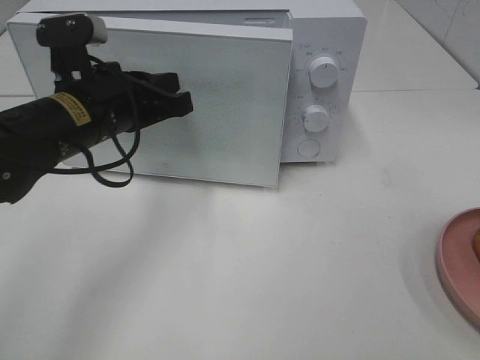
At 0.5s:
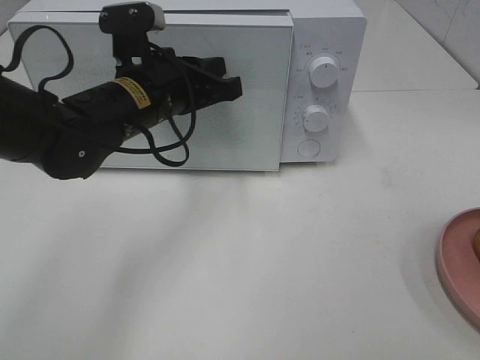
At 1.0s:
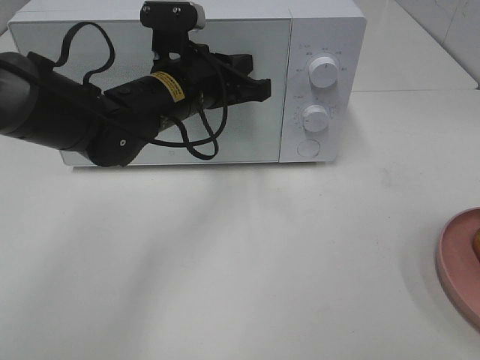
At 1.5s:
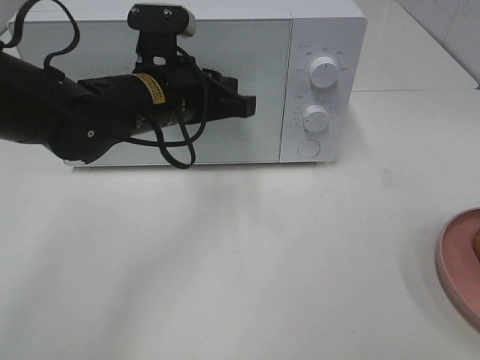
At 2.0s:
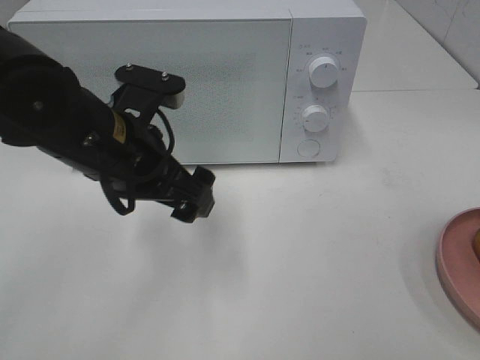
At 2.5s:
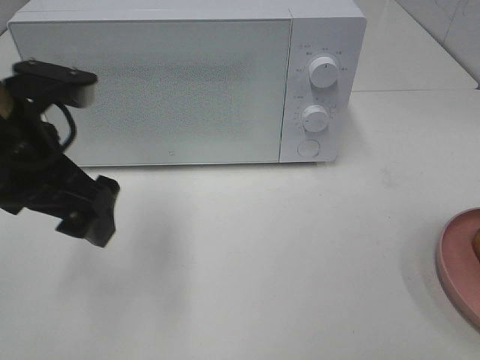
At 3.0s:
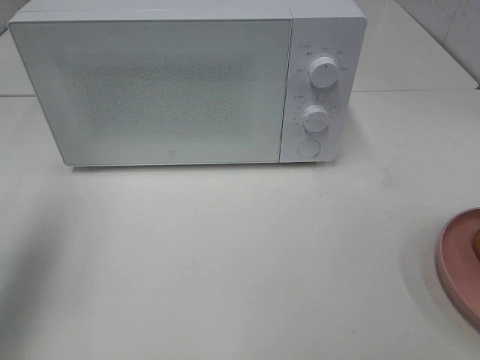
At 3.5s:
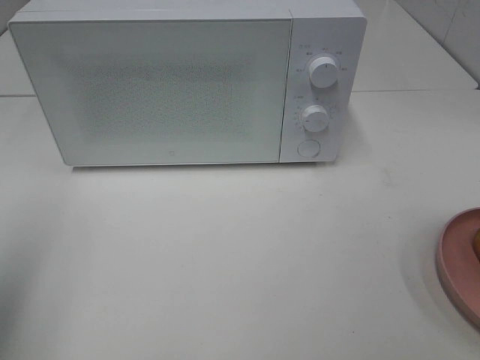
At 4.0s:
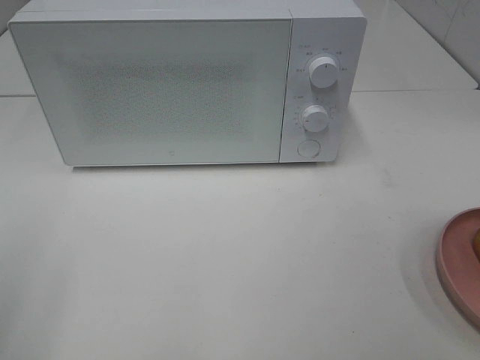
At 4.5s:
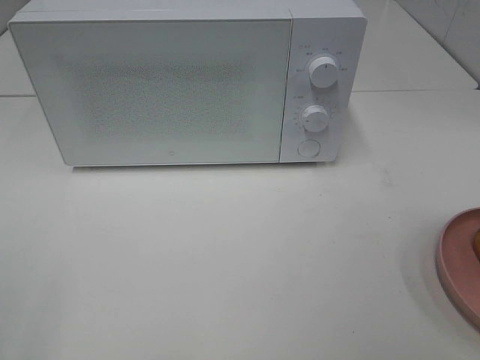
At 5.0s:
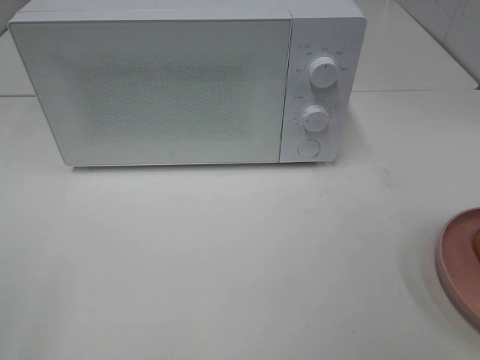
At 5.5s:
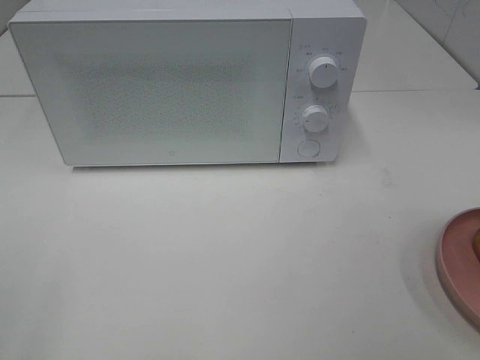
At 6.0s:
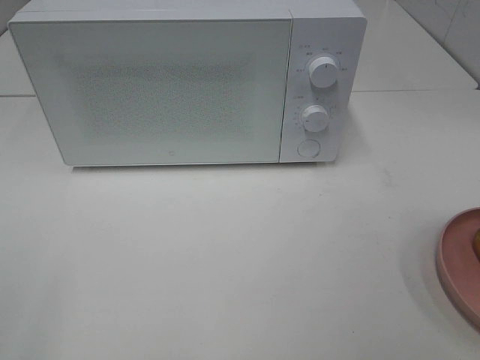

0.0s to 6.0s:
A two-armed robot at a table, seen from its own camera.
Task of the whole recording: Heat the burger.
0.0s to 2.0s: The left gripper opens its fingers.
2.0s to 4.0s: The left gripper goes about 30 cm to the left and backward.

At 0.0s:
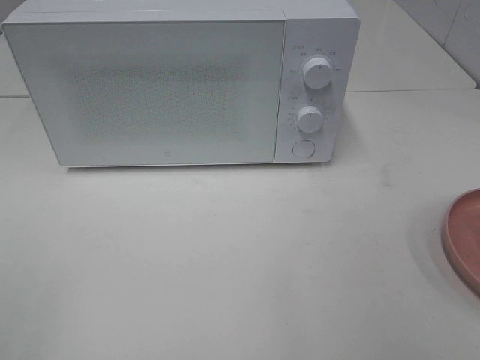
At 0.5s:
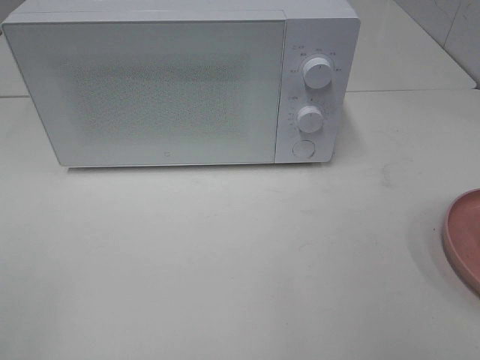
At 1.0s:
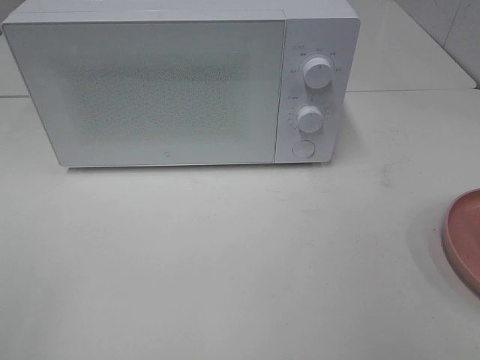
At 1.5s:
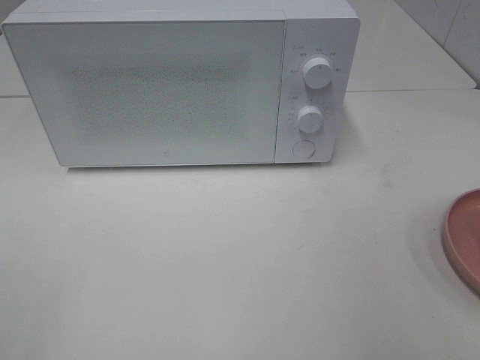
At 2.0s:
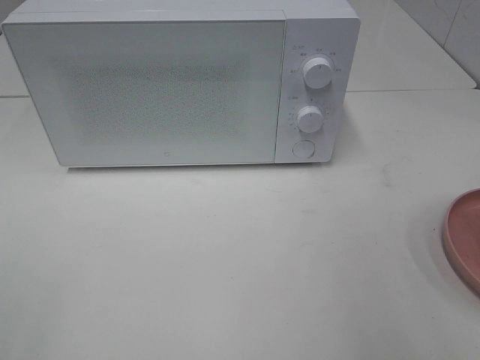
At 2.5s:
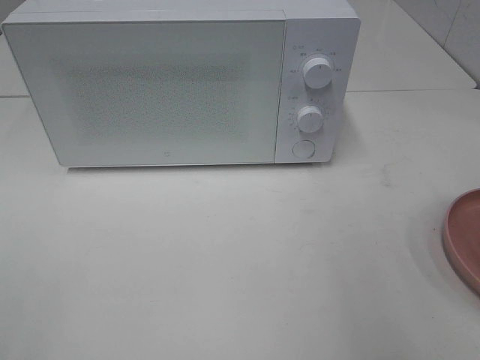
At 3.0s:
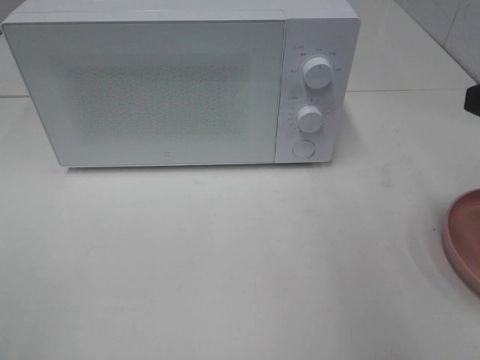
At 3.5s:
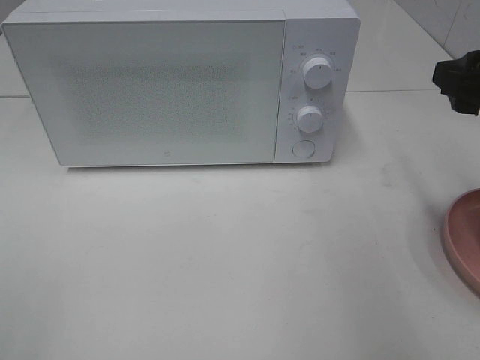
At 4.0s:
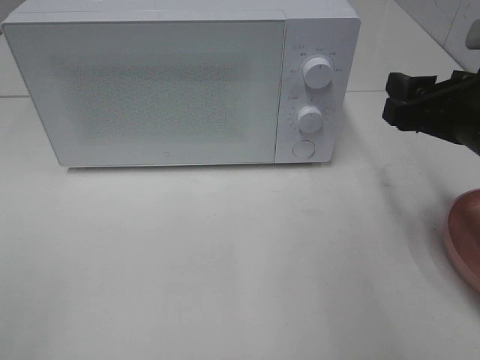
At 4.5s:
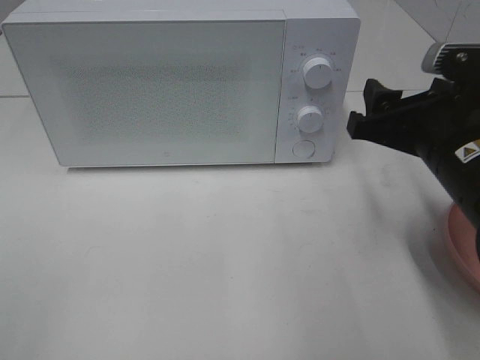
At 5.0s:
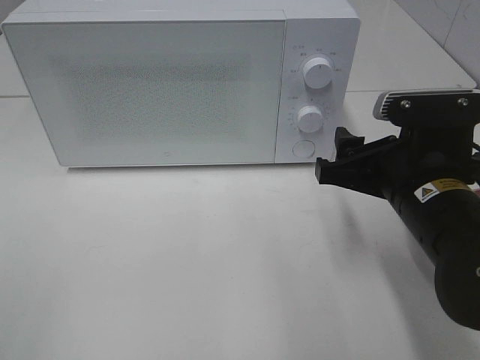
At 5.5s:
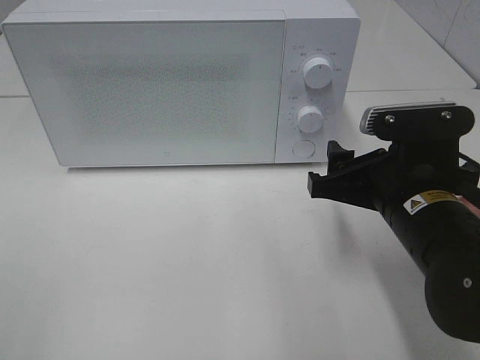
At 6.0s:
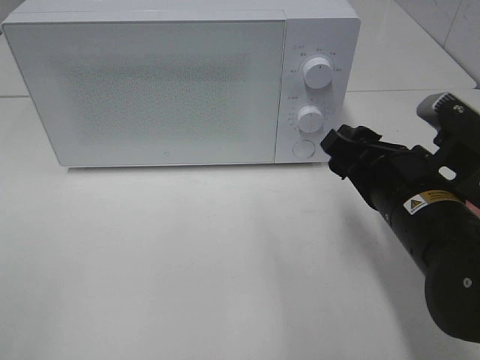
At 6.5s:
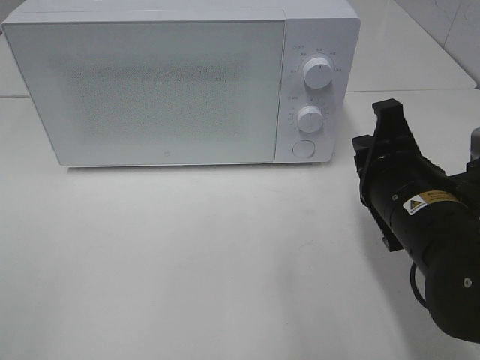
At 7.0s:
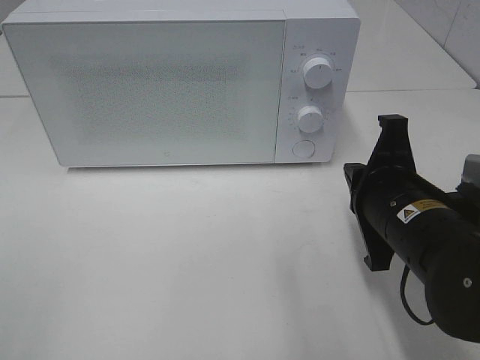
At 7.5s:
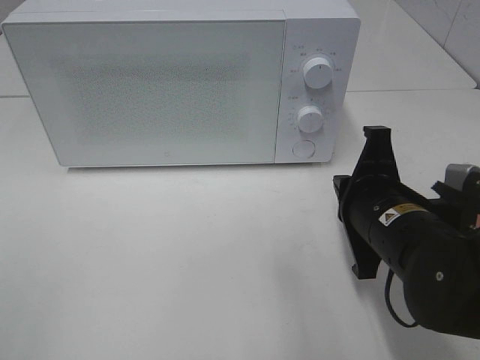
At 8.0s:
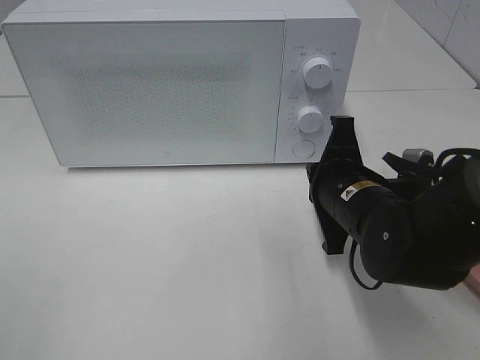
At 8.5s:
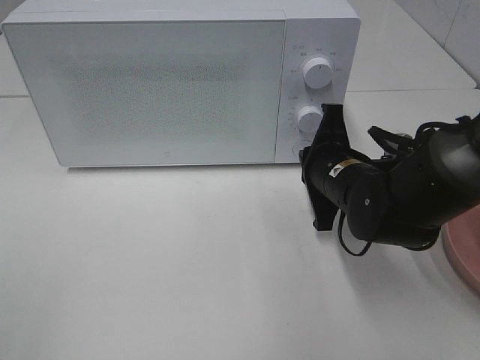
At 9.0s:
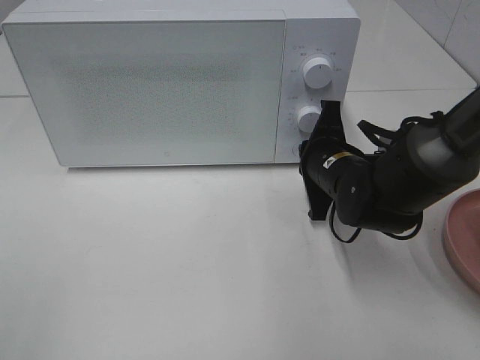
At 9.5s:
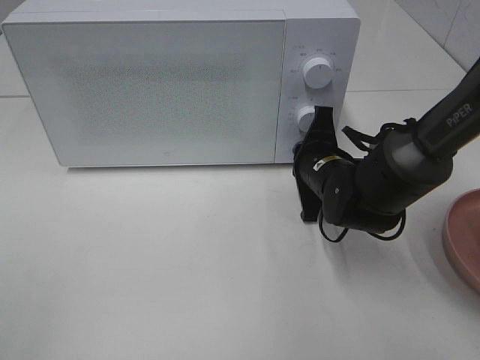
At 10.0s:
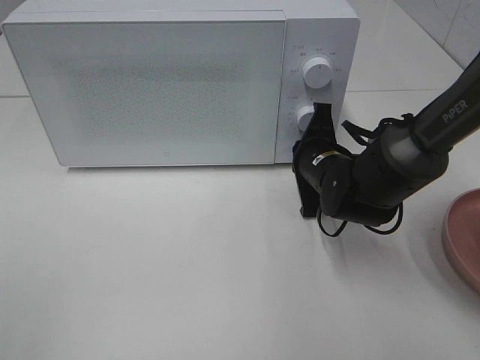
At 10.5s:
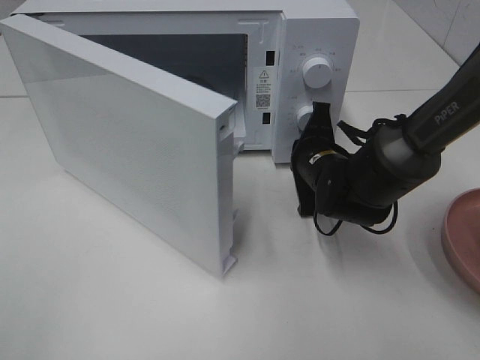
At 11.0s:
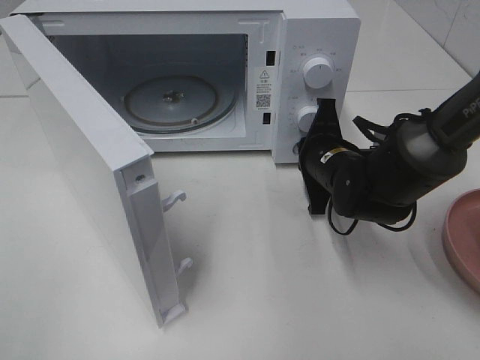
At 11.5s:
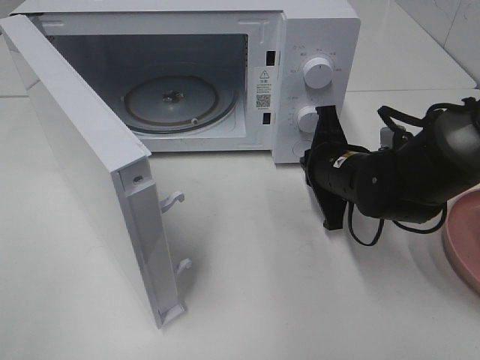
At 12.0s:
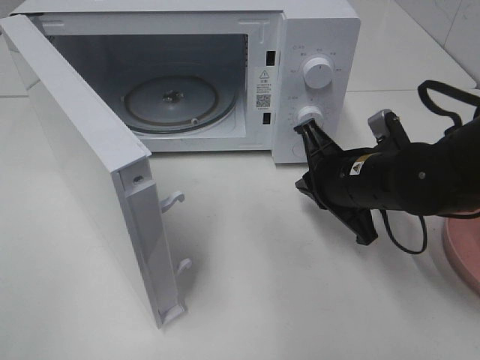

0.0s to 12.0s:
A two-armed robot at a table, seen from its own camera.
Task of the whole recording: Heat the burger.
Step, 0.0s to 11.5s: Right hand: press the switch.
2.0s to 4.0s: The right gripper travels forward and downward by about 15 cm.
4.0s to 6.0s: The right gripper goes roughly 10 cm to the left and downward.
6.0s to 8.0s: The right gripper moves some 5 cm, and closes its fingers.
8.0s to 10.0s: The right gripper goes about 10 cm forward.
10.0s to 12.0s: The right gripper travels backward by some 5 cm.

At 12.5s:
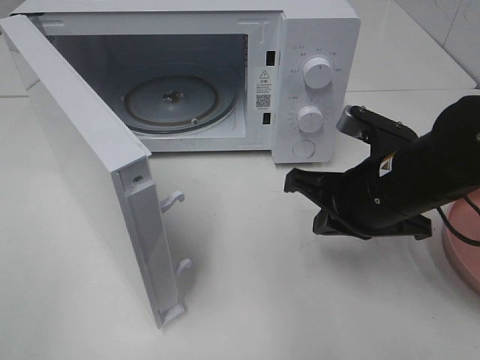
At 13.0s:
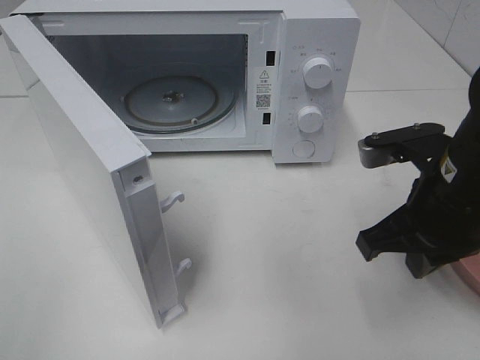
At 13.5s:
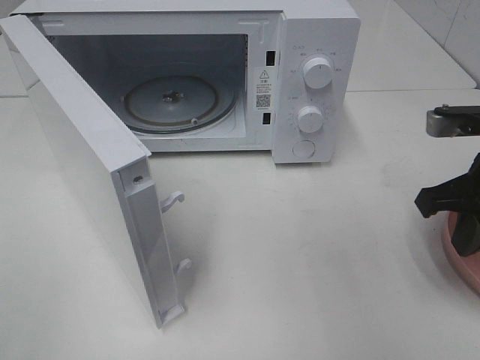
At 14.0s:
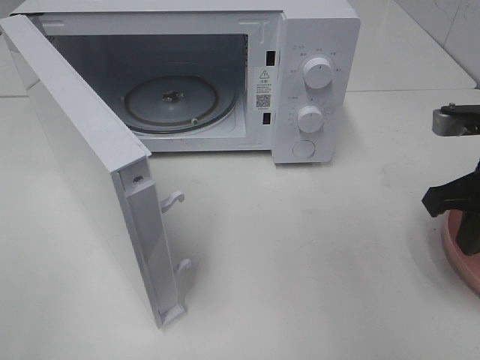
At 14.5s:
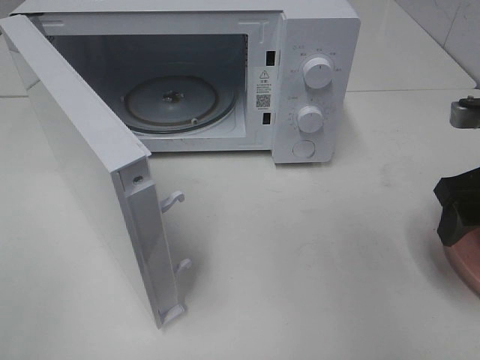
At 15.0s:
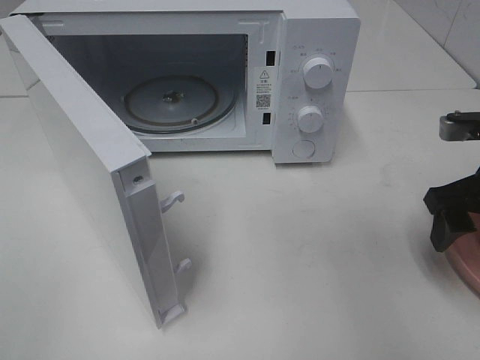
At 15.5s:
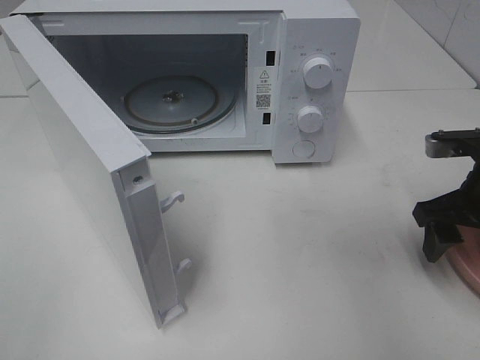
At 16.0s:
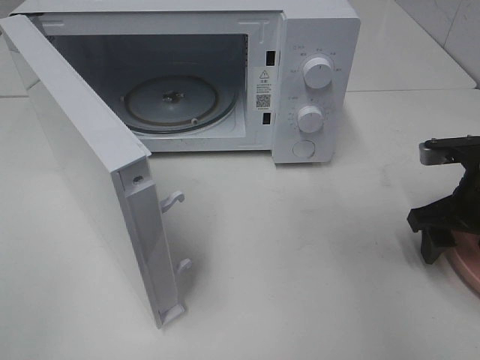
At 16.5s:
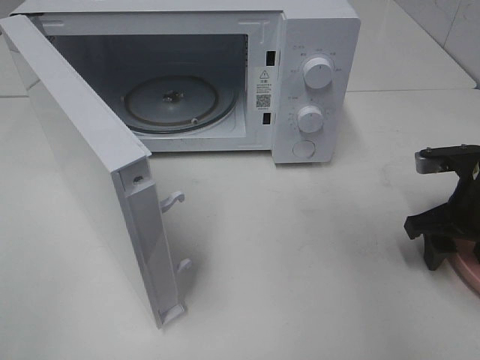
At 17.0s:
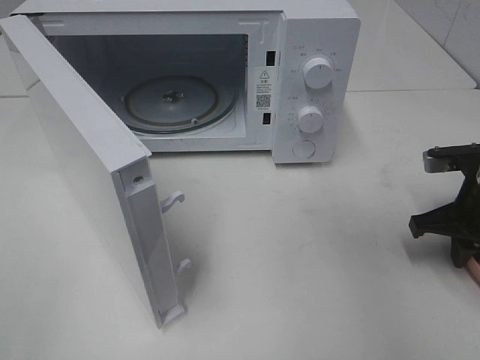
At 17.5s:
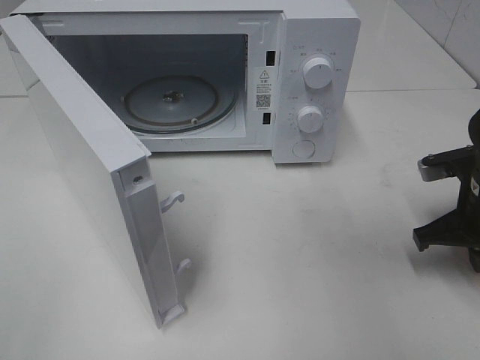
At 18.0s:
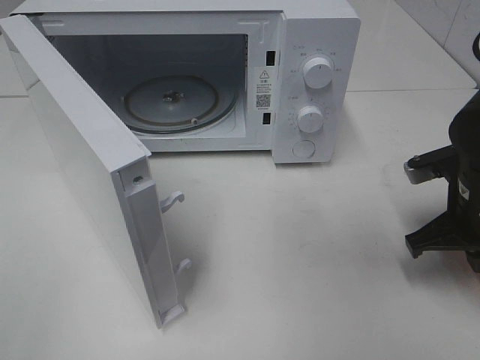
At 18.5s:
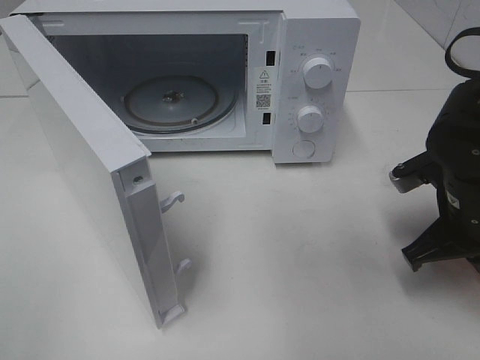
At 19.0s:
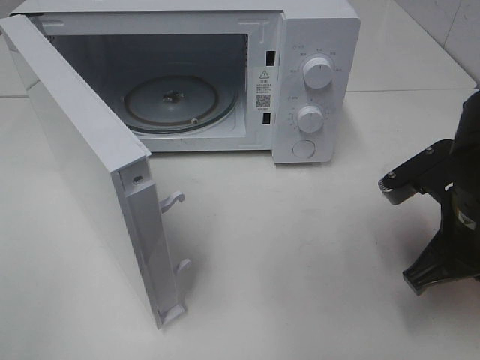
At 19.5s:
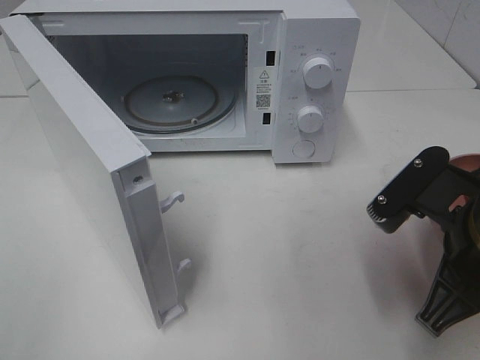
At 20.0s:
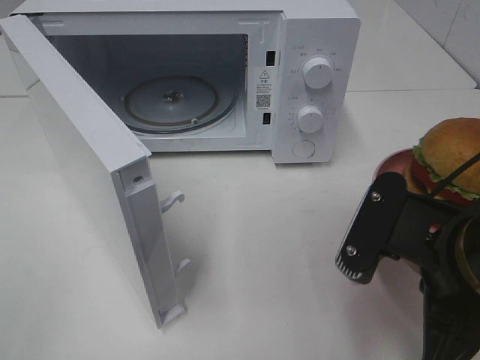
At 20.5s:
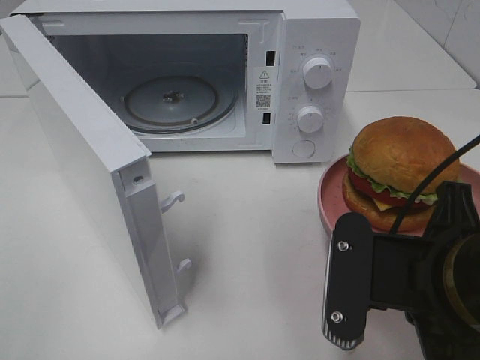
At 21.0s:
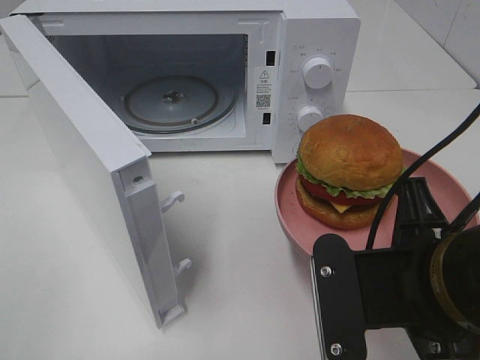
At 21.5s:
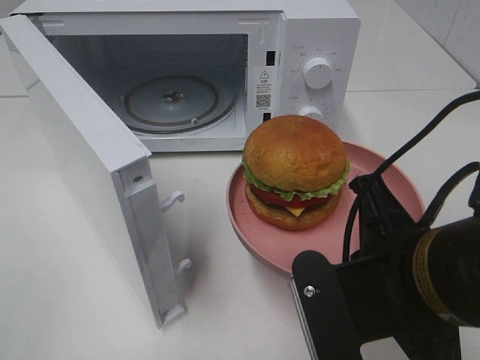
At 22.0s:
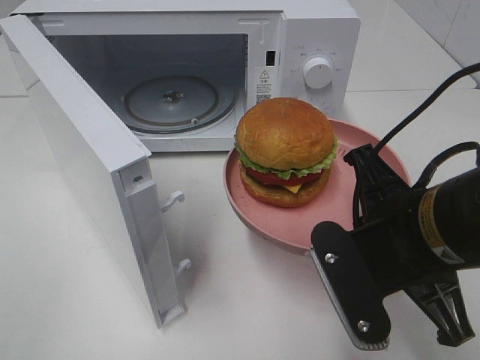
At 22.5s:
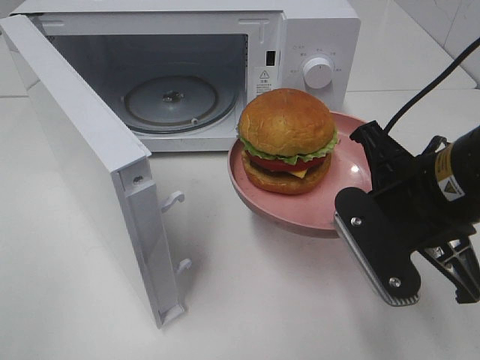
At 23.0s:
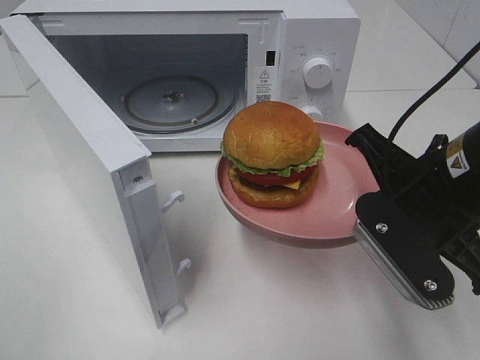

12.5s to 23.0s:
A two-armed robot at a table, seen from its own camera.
Task of the whole recording: Heat the burger.
Step, 12.5s to 17.5s: Right hand: grab the plate with the hamburger.
12.5s to 14.5s: The right gripper is displaced to the right by approximately 15 cm, and opens up.
14.5s to 16.5s: The right gripper is displaced downward by approximately 10 cm.
16.5s to 19.0s: The right gripper goes about 10 cm to the left and backward, and closes up.
19.0s to 21.0s: The right gripper shifts some 10 cm backward and to the left.
21.0s to 23.0s: The right gripper heads forward, covering roughly 10 cm.
